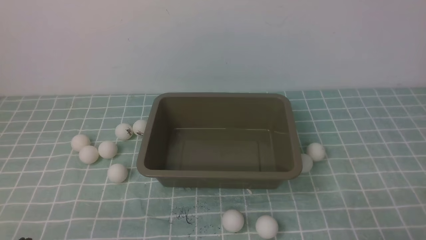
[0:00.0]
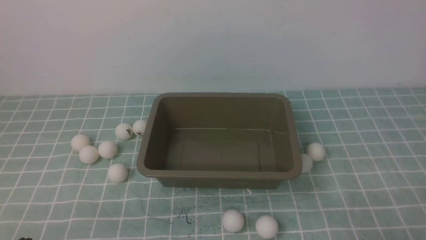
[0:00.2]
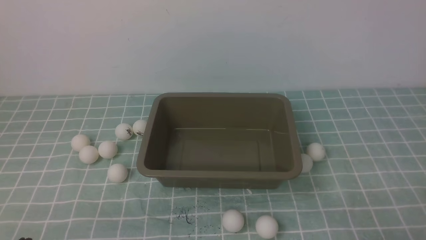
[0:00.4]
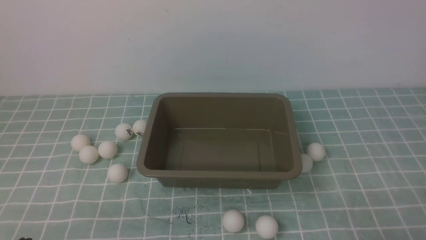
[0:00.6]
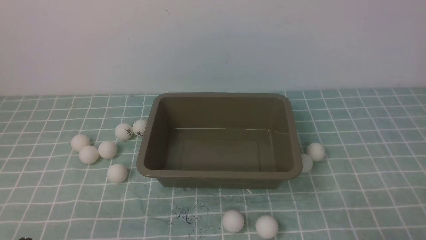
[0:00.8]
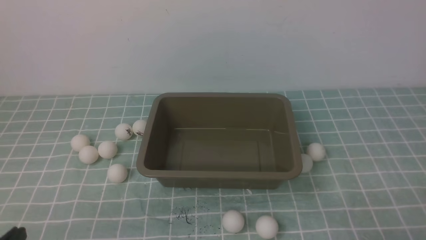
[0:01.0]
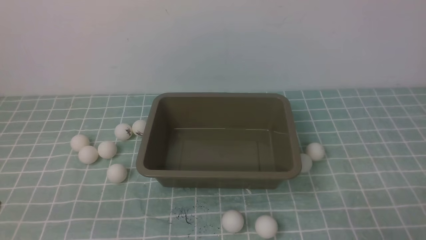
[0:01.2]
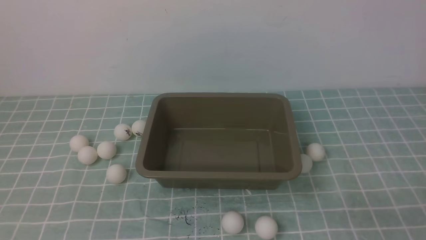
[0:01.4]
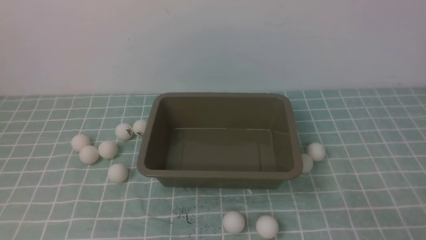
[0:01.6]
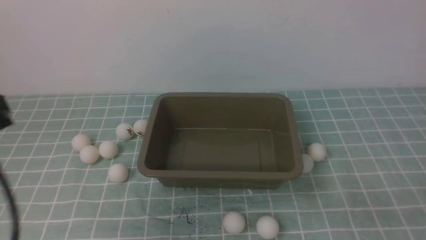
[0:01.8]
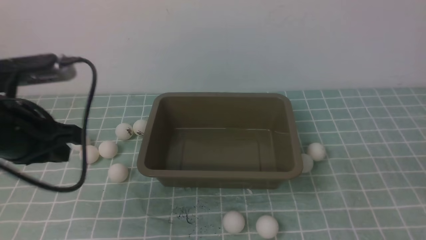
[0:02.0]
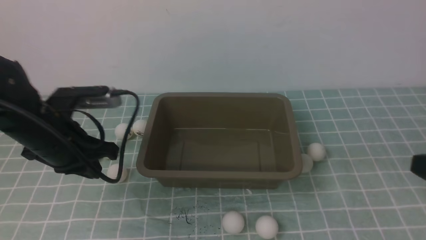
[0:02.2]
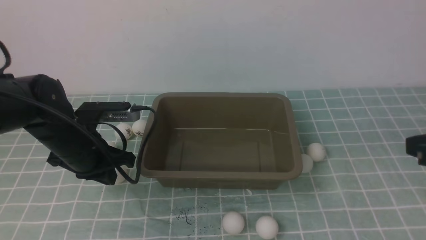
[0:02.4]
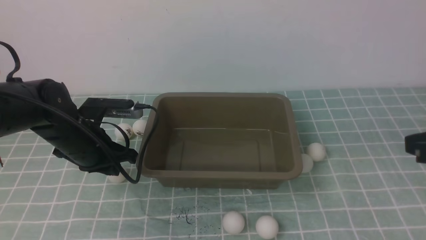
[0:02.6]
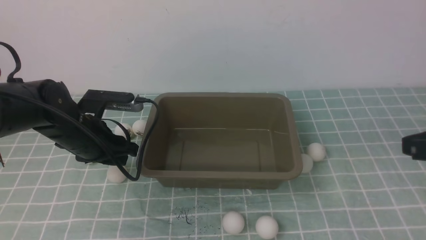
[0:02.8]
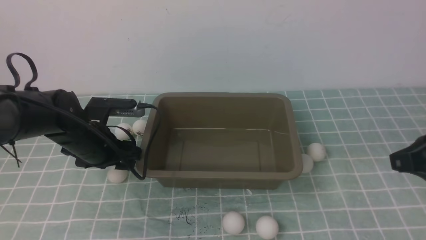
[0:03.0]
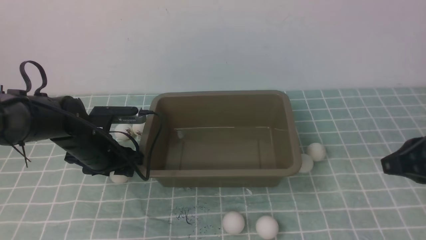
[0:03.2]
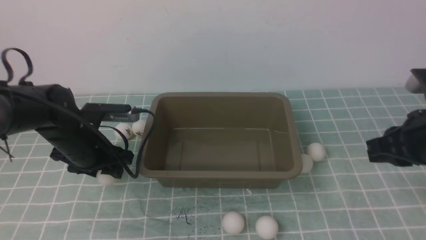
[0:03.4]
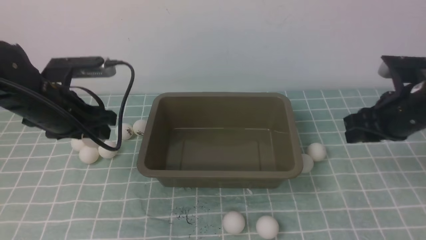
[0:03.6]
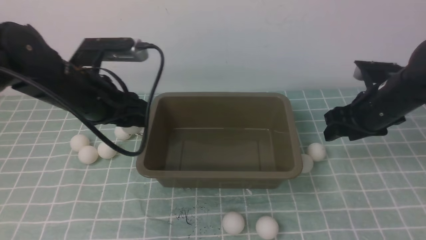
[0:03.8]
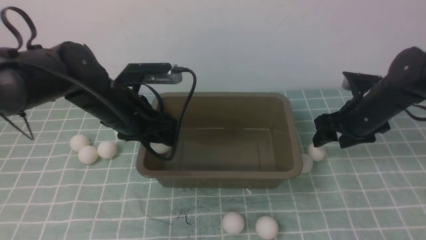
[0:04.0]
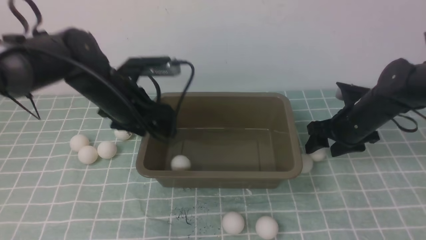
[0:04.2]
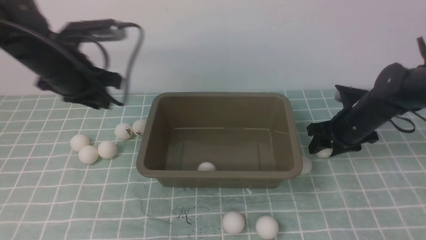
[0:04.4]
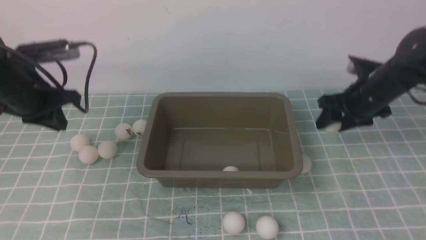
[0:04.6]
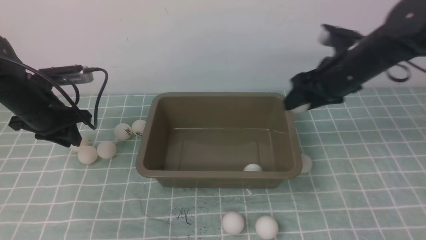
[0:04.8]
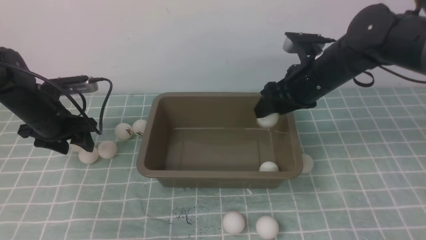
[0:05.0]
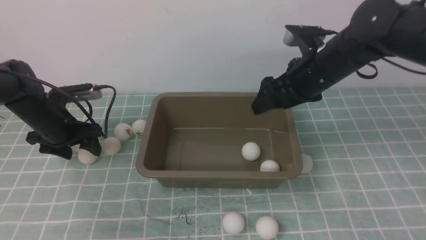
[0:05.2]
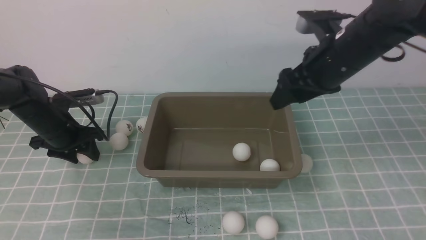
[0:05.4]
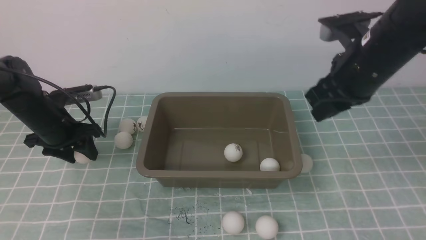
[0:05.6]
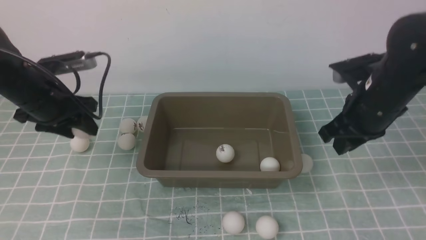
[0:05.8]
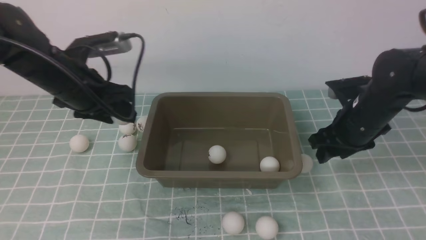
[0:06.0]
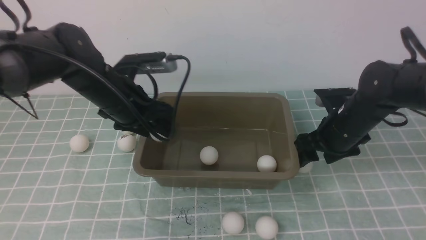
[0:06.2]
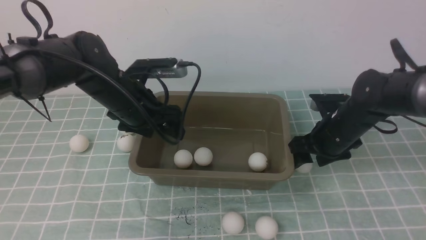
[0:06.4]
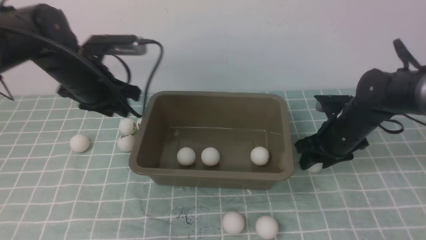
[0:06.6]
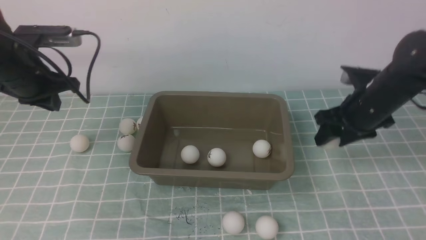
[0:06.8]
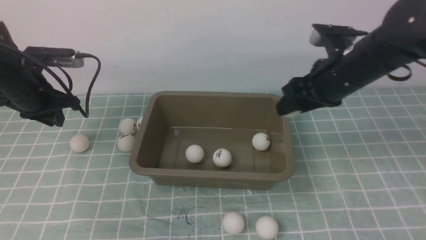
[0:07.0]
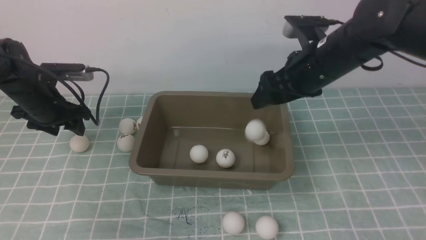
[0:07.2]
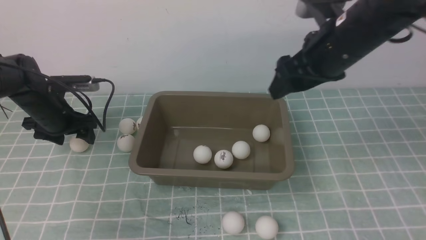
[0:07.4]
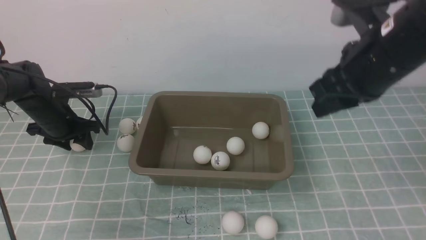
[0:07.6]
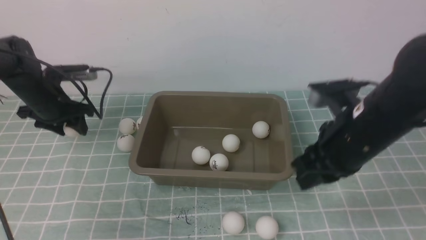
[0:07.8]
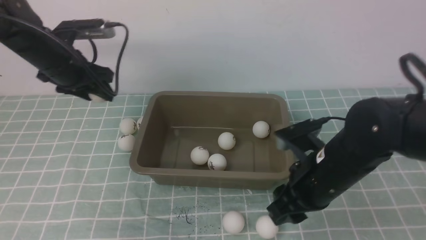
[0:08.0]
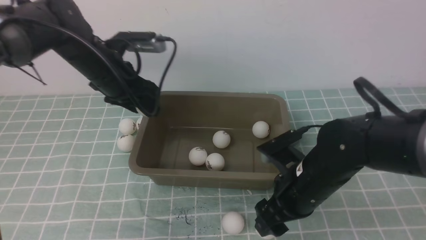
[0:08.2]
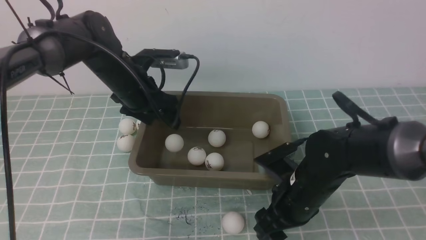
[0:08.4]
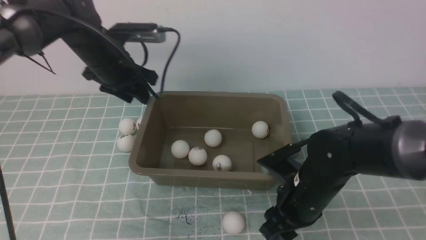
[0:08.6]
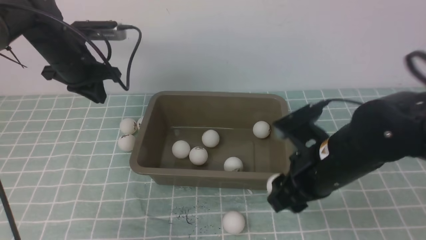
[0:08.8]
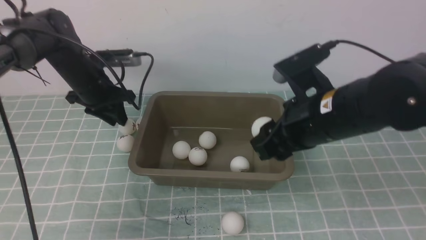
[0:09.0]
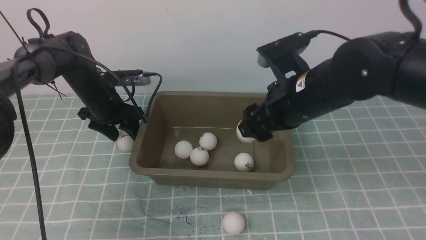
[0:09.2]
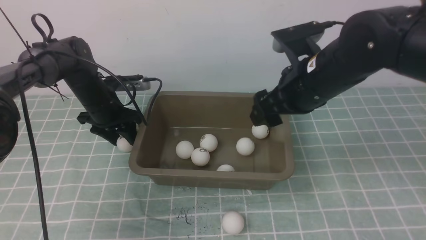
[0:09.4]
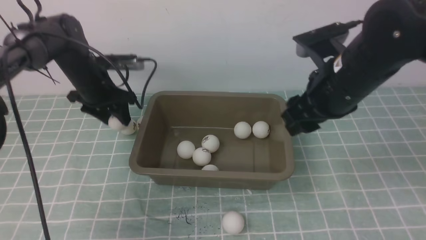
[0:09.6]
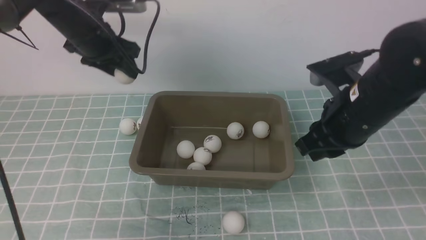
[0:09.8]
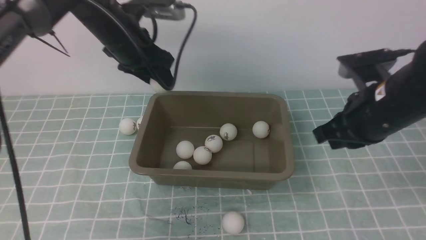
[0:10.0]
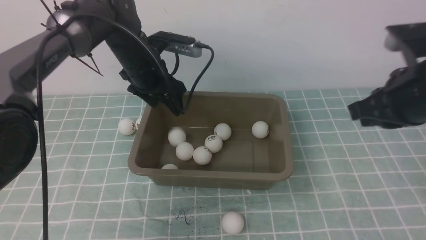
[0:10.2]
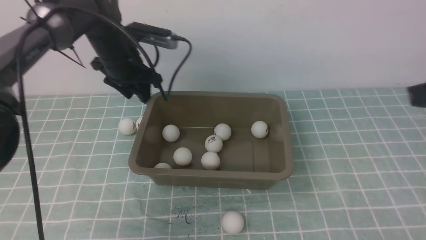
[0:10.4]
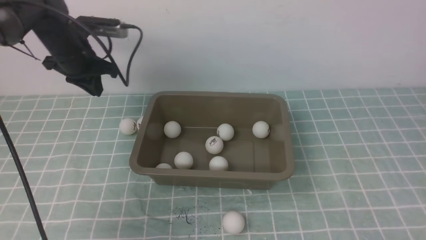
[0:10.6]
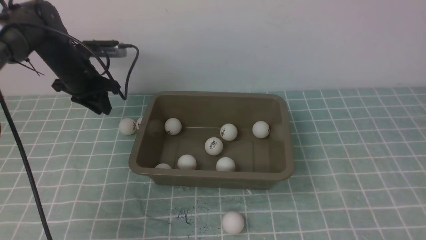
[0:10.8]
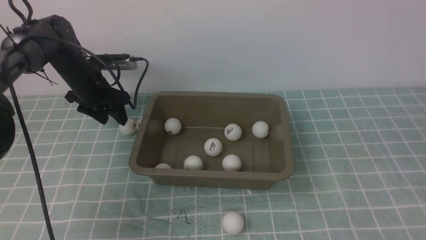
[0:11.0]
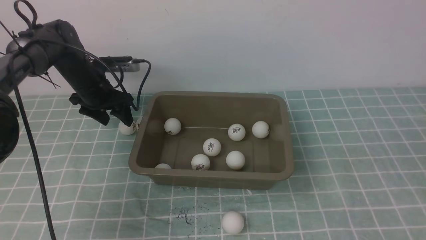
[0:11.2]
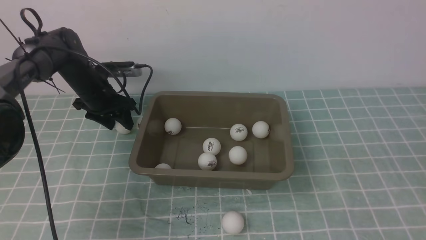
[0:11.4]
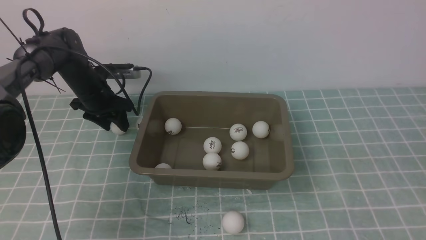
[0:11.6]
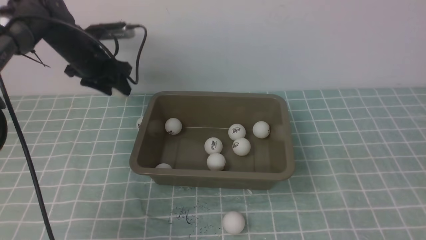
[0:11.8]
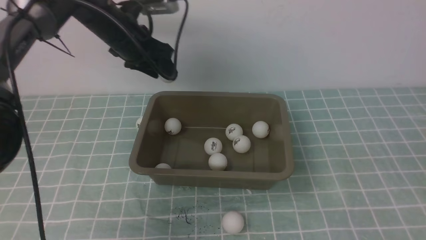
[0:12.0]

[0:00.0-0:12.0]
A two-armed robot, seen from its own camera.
Step, 0:00.0 to 0:03.4: use the left arm to clamp the table tennis ball closest to it.
Step, 0:03.6 to 0:04.0: use the left arm to put the table tennis ball into the box.
Step, 0:04.2 to 0:04.6: use the right arm to clamp the table tennis ball closest to it.
Step, 0:05.2 to 0:05.8: use the left arm to clamp the table tennis ball closest to it.
Step, 0:06.0 to 0:06.2: use the left arm to put the table tennis ball into the box.
Step, 0:06.6 to 0:07.0: use the right arm to clamp the table tennis ball closest to it.
Step, 0:07.2 to 0:07.4: use the right arm to put the table tennis ball into the box.
Step, 0:07.6 to 0:08.0: use the left arm to clamp the table tennis ball closest to it.
Step, 0:08.2 to 0:08.4: use the left arm to put the table tennis ball into the box.
Step, 0:08.8 to 0:09.0: use the right arm to clamp the table tennis ball closest to it.
Step, 0:09.2 to 0:09.4: use the right arm to put the table tennis ball into the box.
Step, 0:09.8 to 0:10.0: use the left arm to clamp the table tennis ball closest to it.
Step, 0:10.2 to 0:10.4: use the left arm to put the table tennis ball into the box.
Step, 0:10.8 to 0:11.6: use the right arm to clamp the table tennis ball closest to it.
0:01.6 to 0:03.0: The right gripper moves forward and upward, about 15 cm, while the left gripper goes approximately 30 cm forward and downward, and opens up.
0:03.0 to 0:04.4: The right gripper heads forward and downward, covering approximately 25 cm, and opens up. Meanwhile the left gripper heads upward, covering about 10 cm, and closes.
0:04.4 to 0:06.0: The right gripper is displaced backward by roughly 5 cm, and goes upward and returns, some 15 cm each way; the left gripper travels downward and back again, about 10 cm each way, and opens up.
0:06.0 to 0:07.6: The right gripper shifts some 15 cm upward and backward. Meanwhile the left gripper shifts approximately 15 cm to the left, downward and forward, and closes, then opens again.
0:07.6 to 0:09.0: The right gripper is displaced to the left by approximately 5 cm, goes downward and returns, roughly 15 cm each way, and opens up. The left gripper is displaced to the right by about 5 cm.
0:09.0 to 0:10.4: The left gripper heads upward, covering approximately 5 cm; the right gripper moves to the right, upward and backward, about 20 cm, and closes.
0:10.4 to 0:12.0: The right gripper goes some 15 cm backward; the left gripper travels downward and back again, about 10 cm each way.

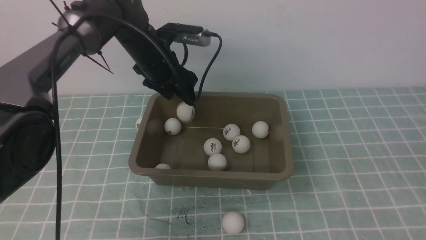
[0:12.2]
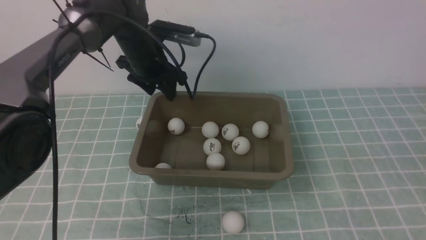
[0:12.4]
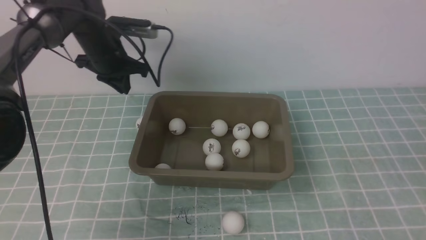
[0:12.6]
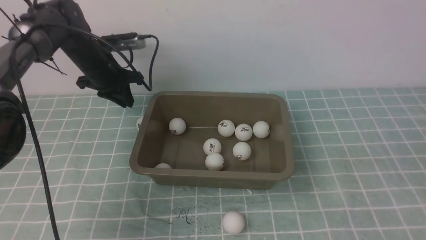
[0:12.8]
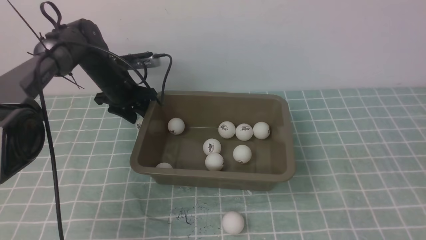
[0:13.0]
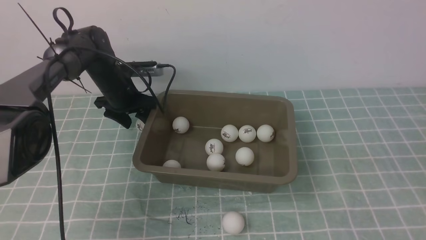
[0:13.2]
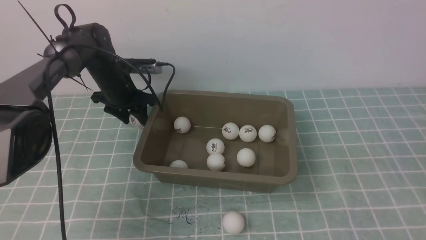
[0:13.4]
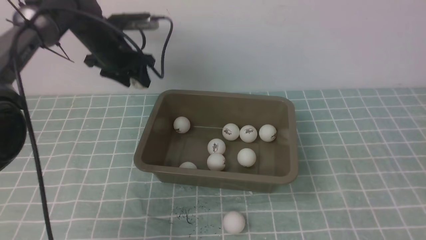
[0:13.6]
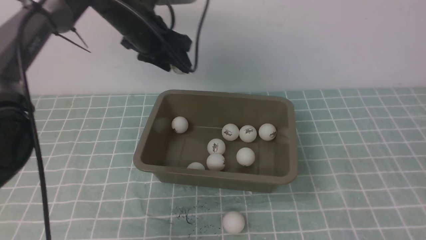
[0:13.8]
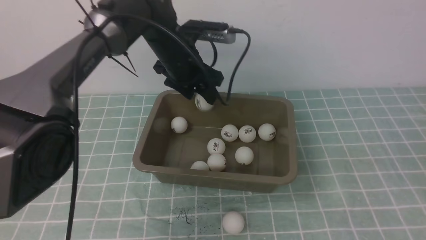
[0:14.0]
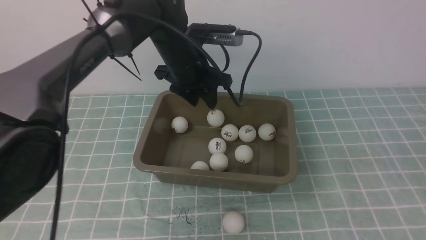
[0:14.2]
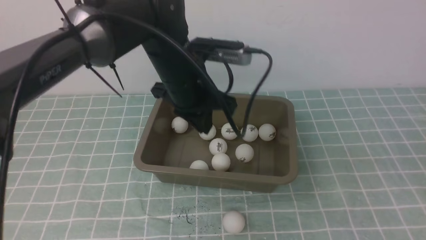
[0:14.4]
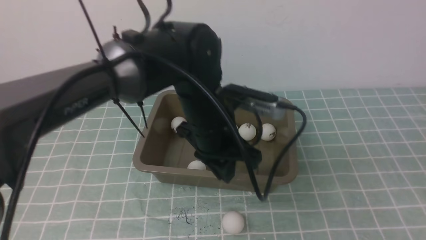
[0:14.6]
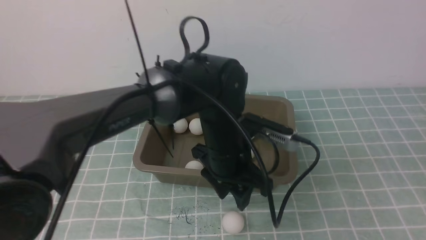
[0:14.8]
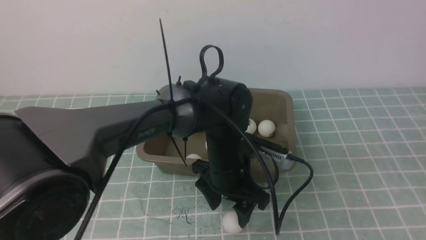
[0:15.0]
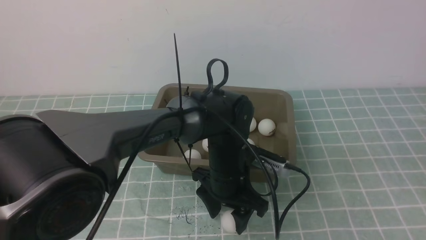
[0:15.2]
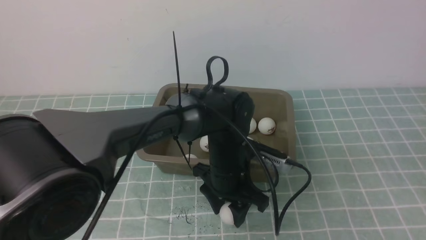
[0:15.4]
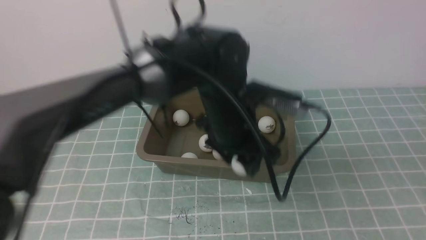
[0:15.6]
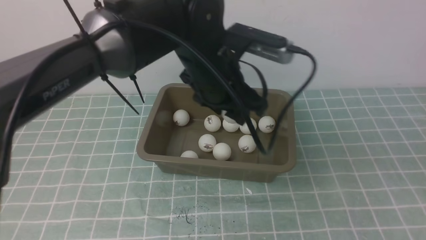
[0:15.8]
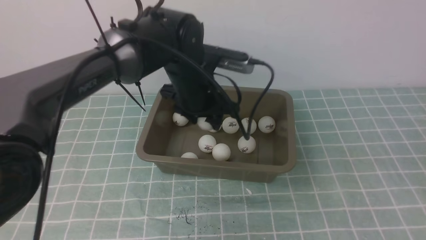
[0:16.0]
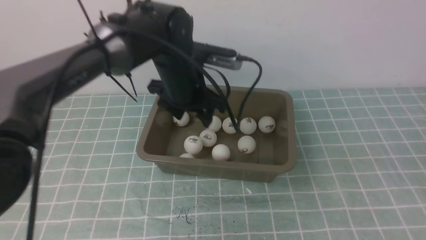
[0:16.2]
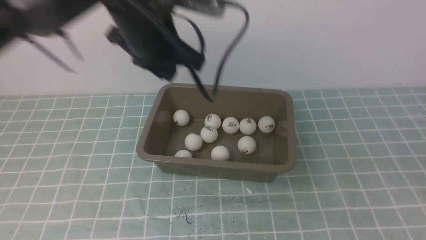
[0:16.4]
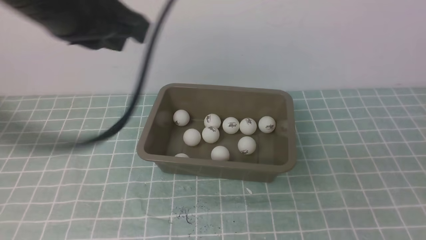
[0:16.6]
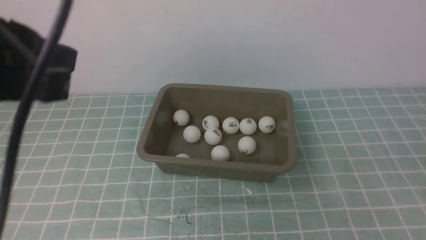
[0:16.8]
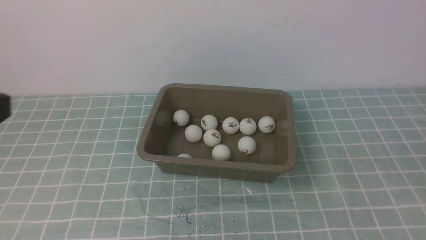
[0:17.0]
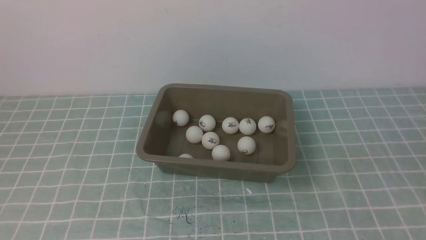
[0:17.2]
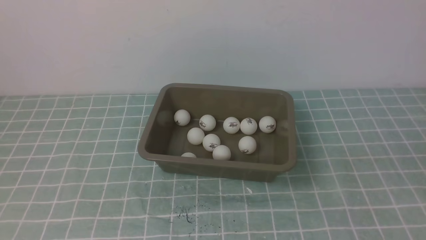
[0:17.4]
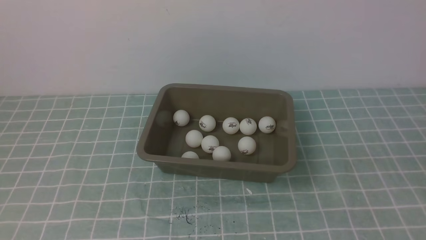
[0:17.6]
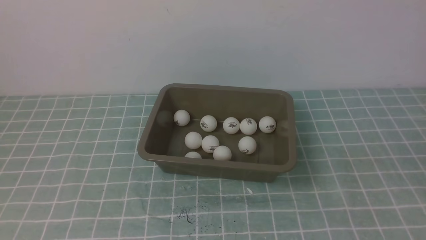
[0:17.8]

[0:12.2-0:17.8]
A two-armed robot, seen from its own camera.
Step, 0:12.4 to 0:13.0: use the left arm to clamp the table tennis ball closest to it.
Step, 0:13.4 to 0:14.2: use the left arm to put the table tennis ball into the box.
0:12.2 to 0:13.6: The left gripper travels downward and back again, roughly 10 cm each way, and closes, then opens again.
0:13.6 to 0:15.0: The left gripper heads to the right, backward and downward, covering about 30 cm, and closes, then reopens.
0:15.0 to 0:16.4: The left gripper heads upward and to the left, covering some 25 cm, and closes its fingers.
0:16.4 to 0:17.8: The left gripper moves backward and to the left, approximately 35 cm.
